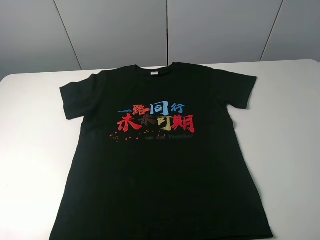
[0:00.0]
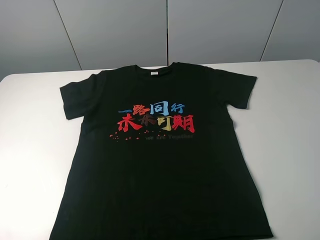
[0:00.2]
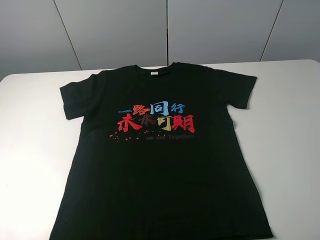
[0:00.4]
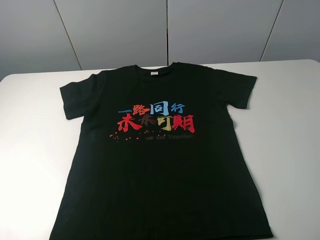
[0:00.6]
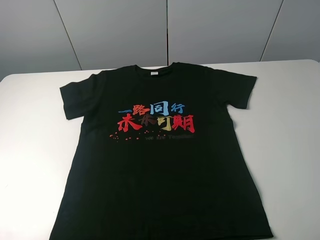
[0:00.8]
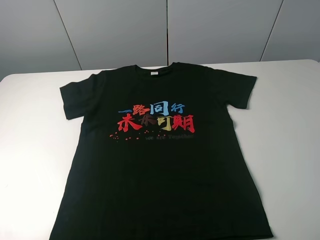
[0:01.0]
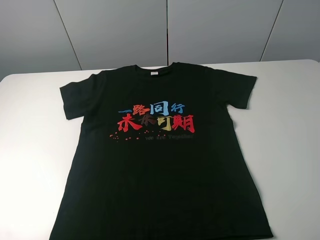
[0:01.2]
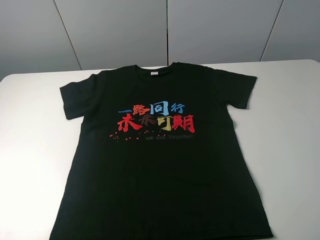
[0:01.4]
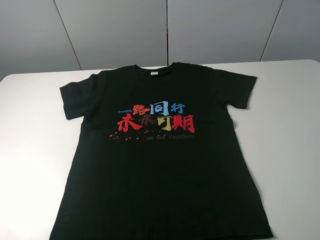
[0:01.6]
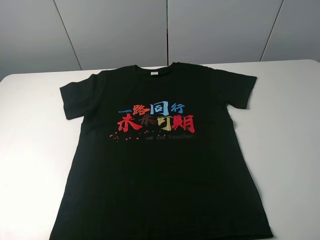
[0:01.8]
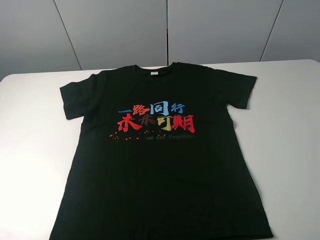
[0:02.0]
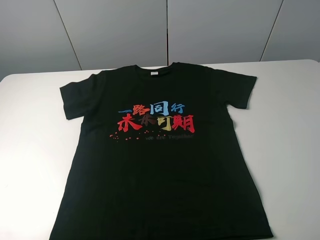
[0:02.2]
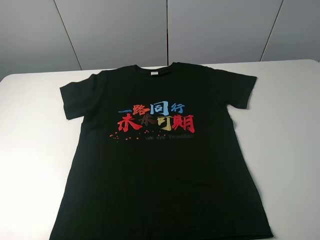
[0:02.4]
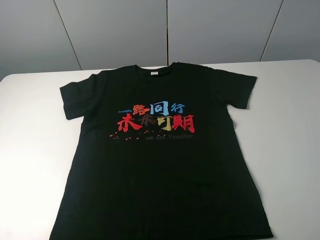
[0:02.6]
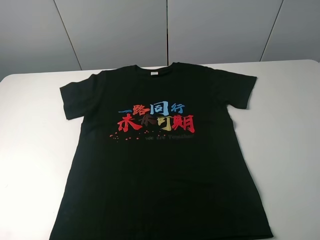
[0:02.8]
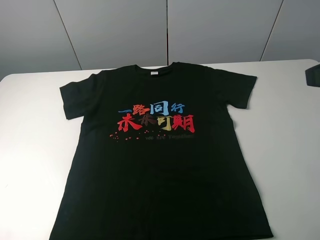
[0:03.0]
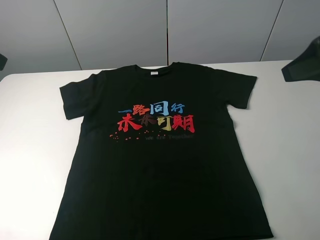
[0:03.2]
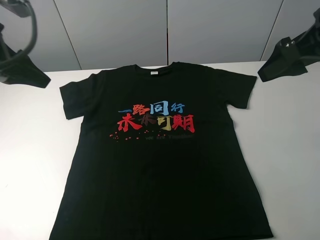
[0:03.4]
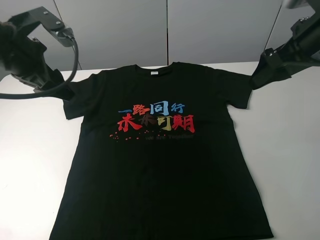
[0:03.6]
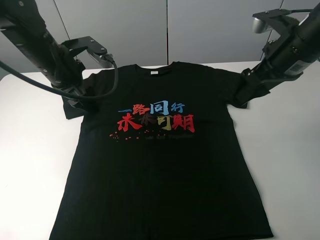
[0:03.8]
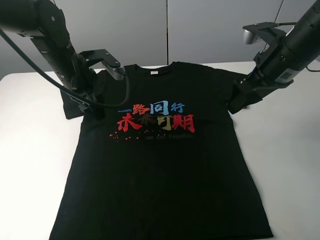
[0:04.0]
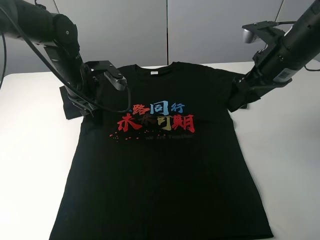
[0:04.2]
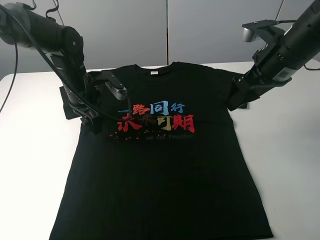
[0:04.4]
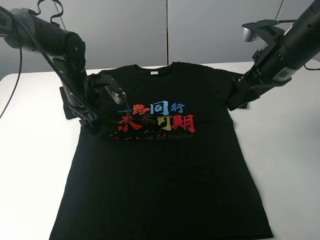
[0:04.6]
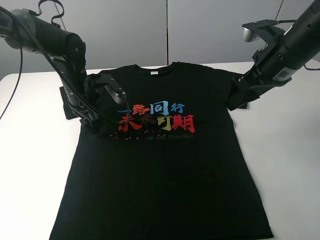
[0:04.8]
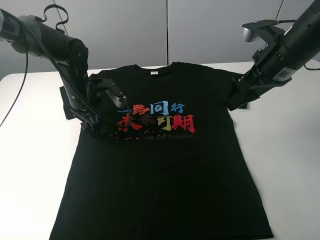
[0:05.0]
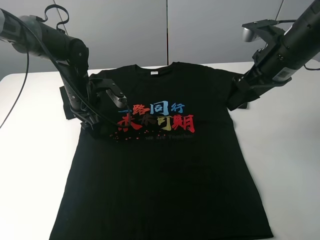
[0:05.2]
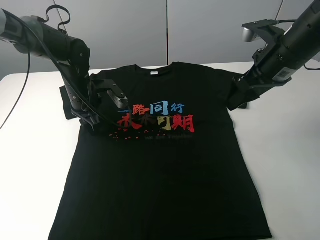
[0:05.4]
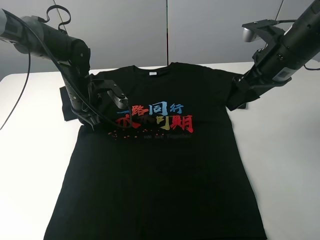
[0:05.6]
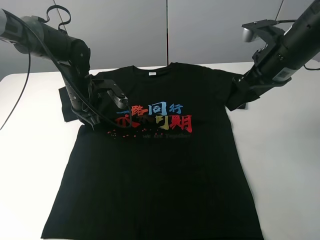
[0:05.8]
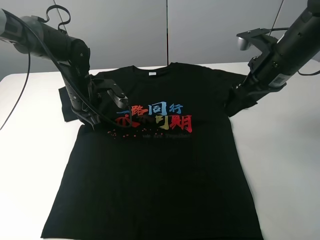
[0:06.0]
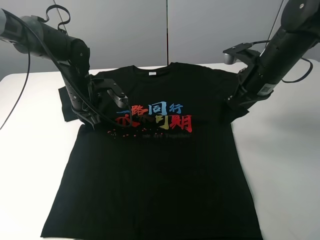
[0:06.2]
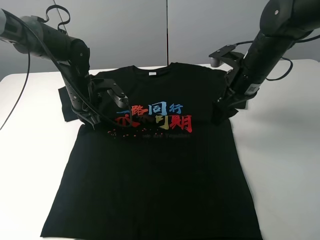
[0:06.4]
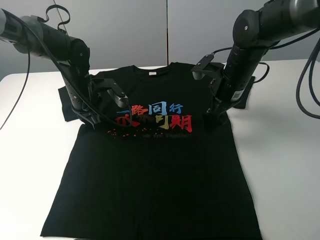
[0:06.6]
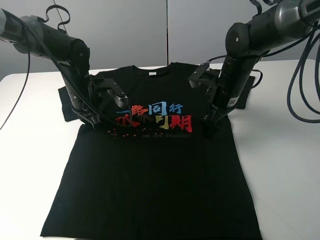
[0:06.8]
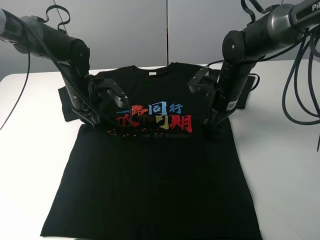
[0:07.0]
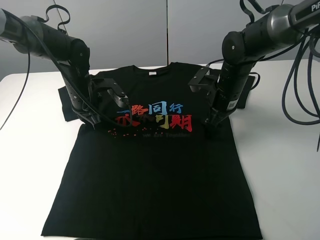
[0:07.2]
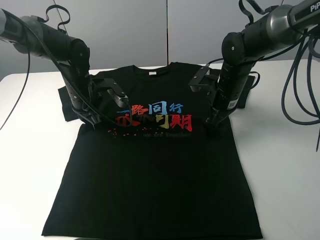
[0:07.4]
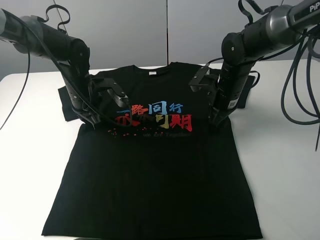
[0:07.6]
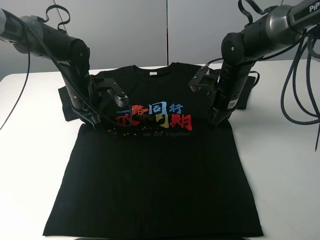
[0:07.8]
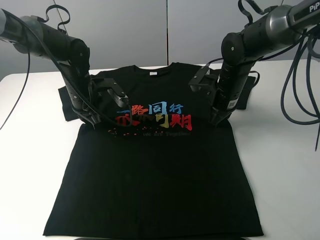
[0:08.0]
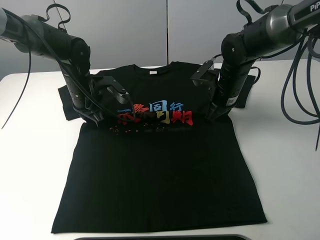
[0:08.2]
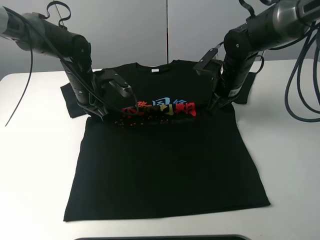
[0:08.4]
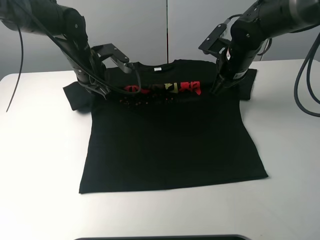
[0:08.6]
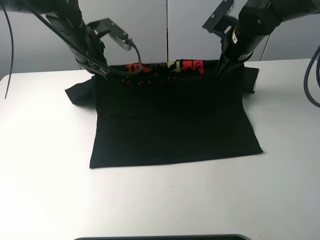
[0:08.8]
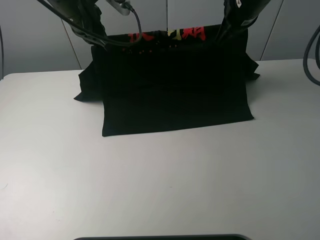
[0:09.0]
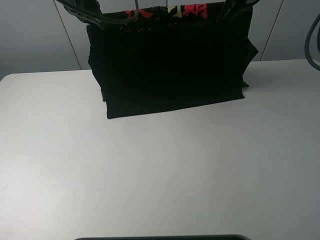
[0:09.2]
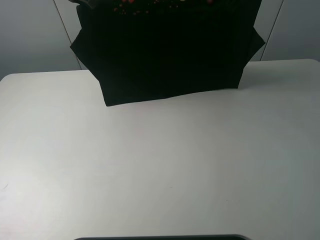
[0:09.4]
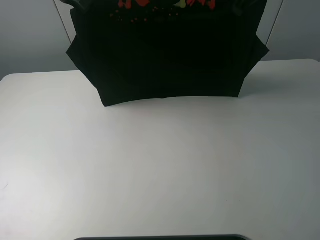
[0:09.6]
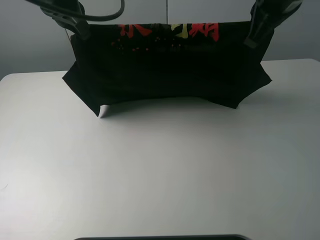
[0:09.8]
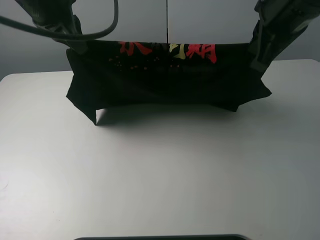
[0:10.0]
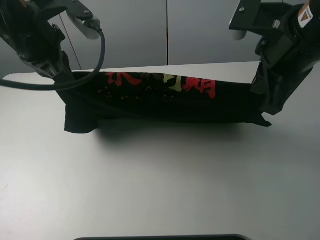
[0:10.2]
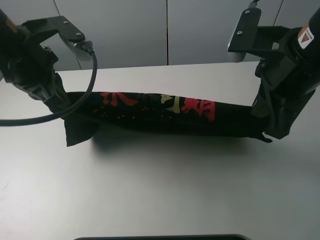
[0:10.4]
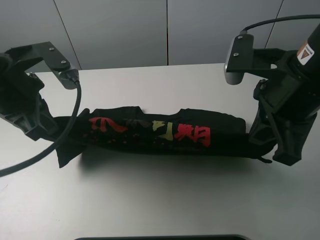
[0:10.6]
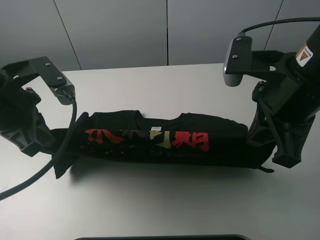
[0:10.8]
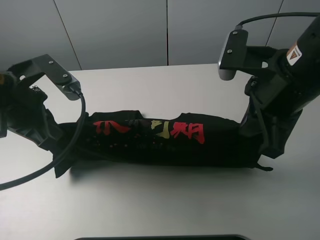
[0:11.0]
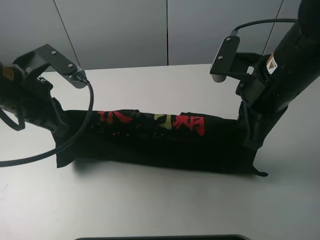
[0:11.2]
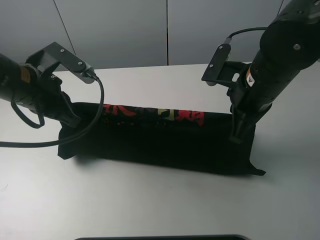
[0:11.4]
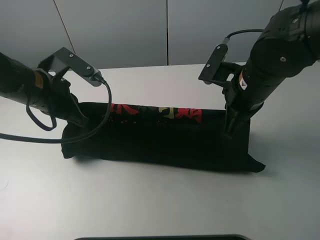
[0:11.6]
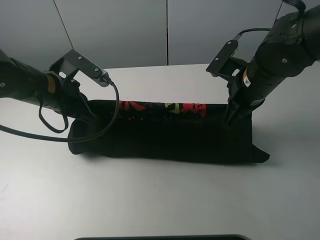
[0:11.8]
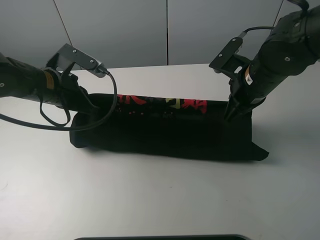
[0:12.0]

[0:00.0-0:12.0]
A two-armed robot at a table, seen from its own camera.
Task of the whole recording: fold the clothes on the table.
Step, 0:00.0 to 0:08.8: Lift the black T-shirt with the left gripper.
0:00.0 to 0:01.6: Both grippers stay about where they are.
0:03.0 to 0:04.4: The left gripper moves downward, forward and to the right, roughly 35 cm, while the right gripper goes some 20 cm forward and downward.
0:04.4 to 0:06.0: The left gripper closes.
0:06.0 to 0:07.6: The right gripper heads downward and to the left, covering some 10 cm, and closes.
0:07.6 to 0:09.0: The grippers both shift upward by roughly 15 cm. The right gripper closes up.
0:09.0 to 0:10.4: Both grippers move backward, roughly 20 cm.
0:10.4 to 0:12.0: The left gripper shifts some 10 cm downward, while the right gripper moves downward and forward, approximately 15 cm.

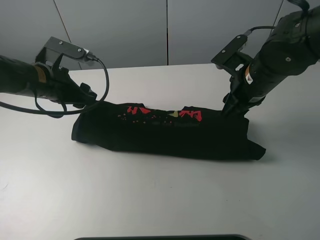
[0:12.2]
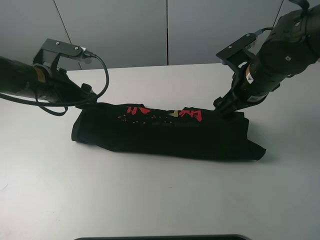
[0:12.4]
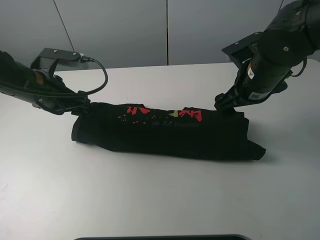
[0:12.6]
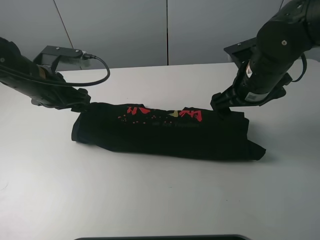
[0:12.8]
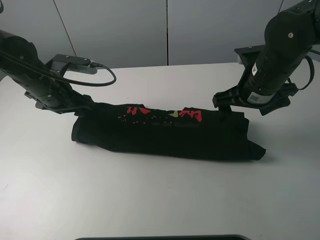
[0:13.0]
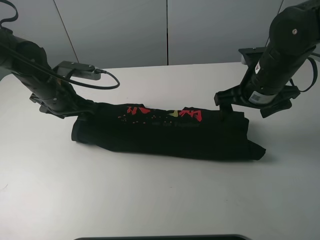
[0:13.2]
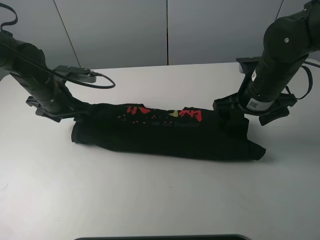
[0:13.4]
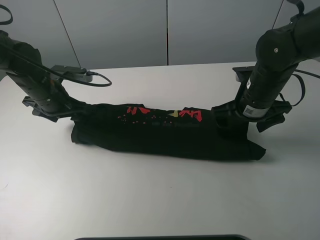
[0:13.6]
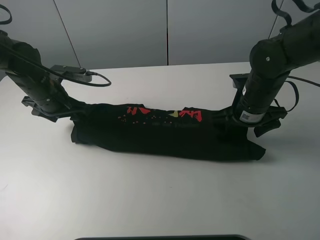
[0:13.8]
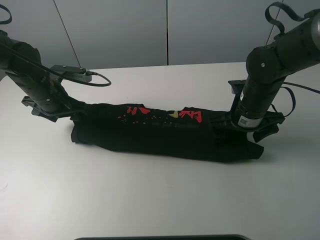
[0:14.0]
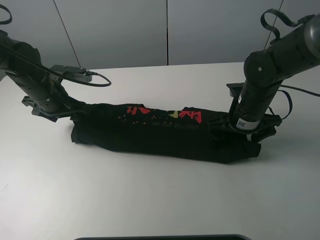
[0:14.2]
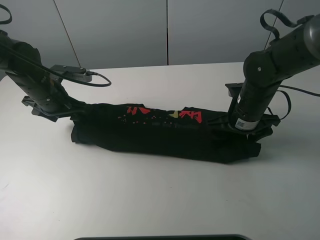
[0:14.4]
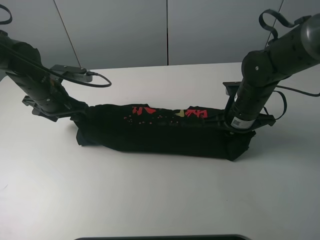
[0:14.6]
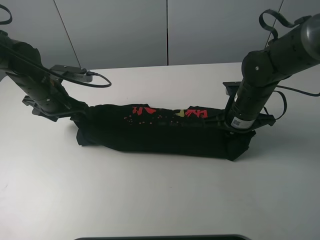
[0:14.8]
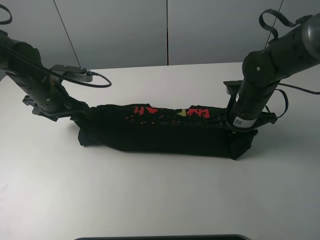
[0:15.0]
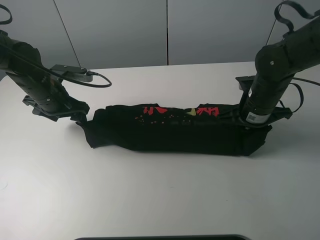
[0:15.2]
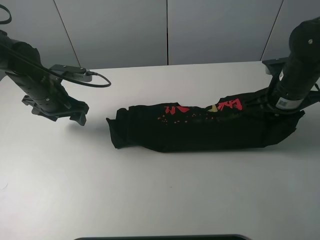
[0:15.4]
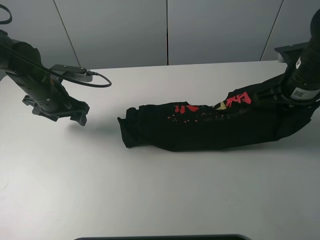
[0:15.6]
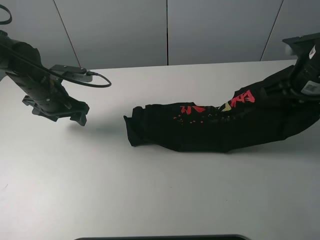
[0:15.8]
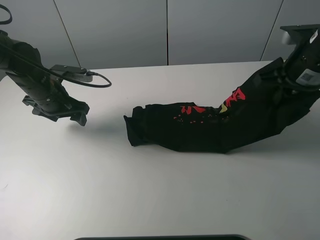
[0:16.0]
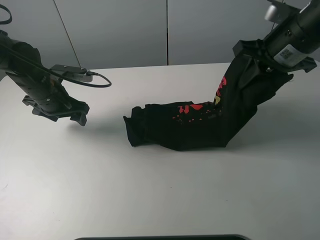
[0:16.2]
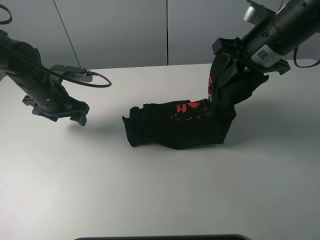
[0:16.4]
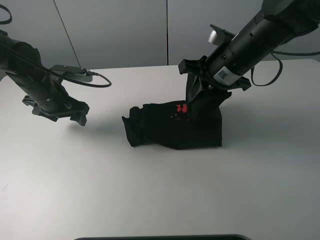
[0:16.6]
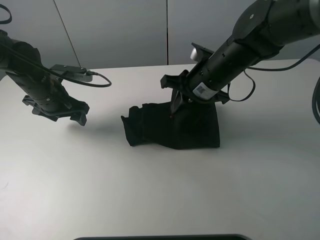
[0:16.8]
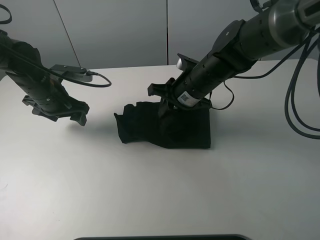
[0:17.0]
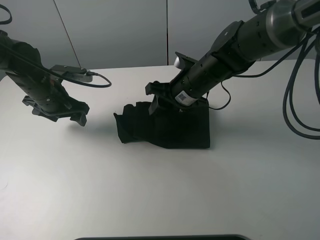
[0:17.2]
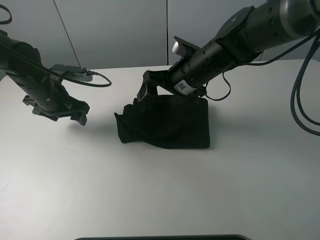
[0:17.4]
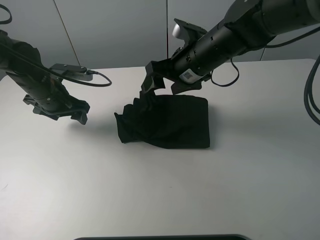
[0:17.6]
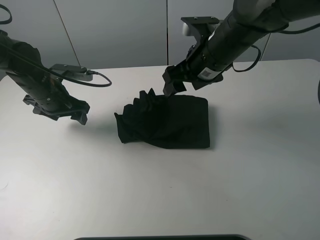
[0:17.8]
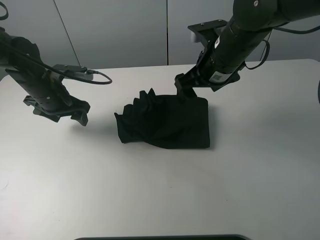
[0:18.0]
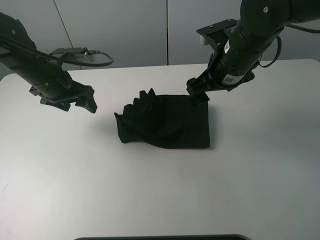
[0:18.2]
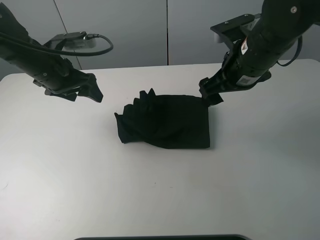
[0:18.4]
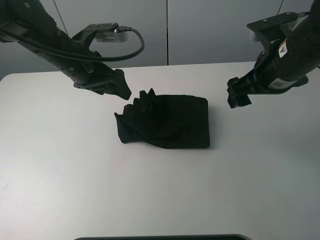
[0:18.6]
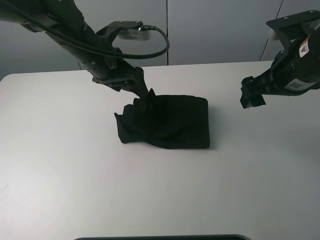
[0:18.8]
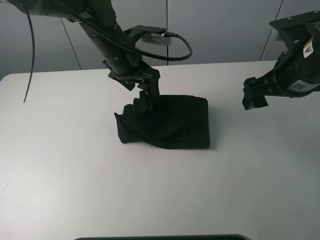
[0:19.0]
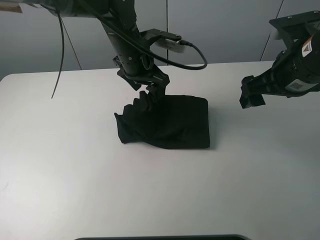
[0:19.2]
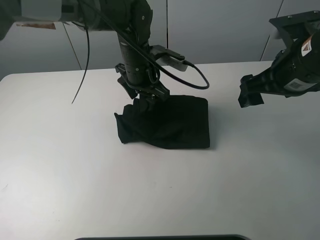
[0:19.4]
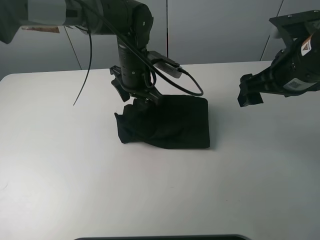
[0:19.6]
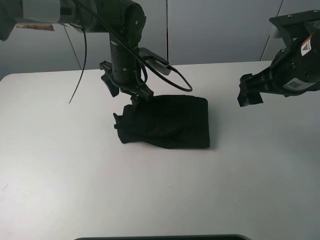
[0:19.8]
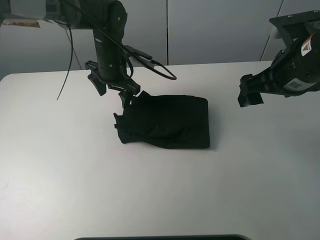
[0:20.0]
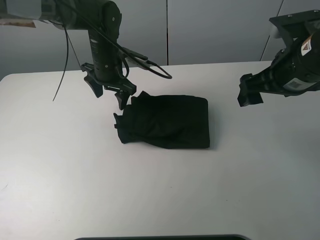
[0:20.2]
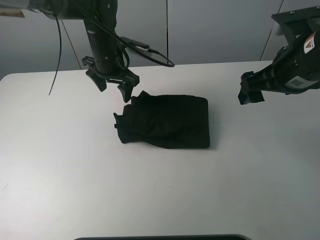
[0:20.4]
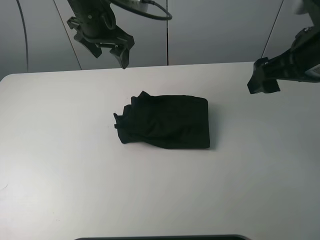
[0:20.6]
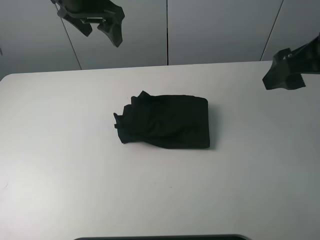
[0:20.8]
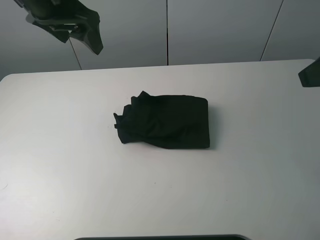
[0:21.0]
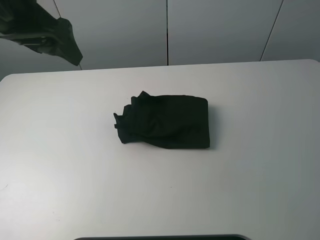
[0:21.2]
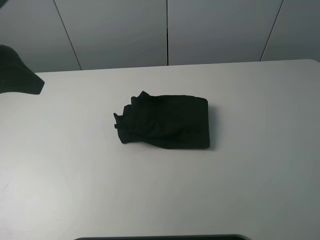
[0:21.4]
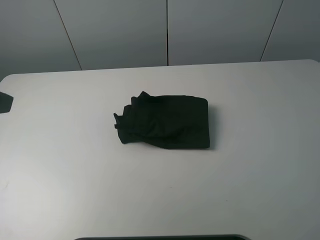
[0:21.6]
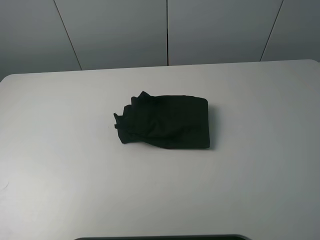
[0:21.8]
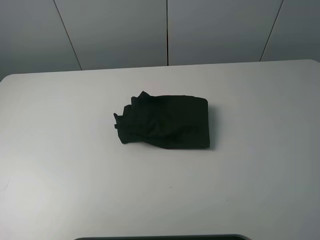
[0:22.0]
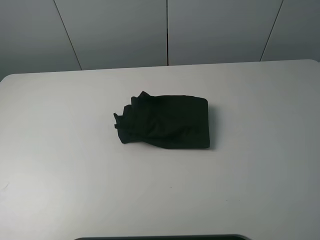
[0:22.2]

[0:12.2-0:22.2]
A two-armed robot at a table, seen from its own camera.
Task of the whole recording: fold the clothes on the table.
Step, 0:12.6 to 0:14.6: Grasp the black T-shirt with the right gripper.
Step, 0:14.8 to 0:17.6: Fold the black T-shirt from right to left with right gripper.
Step, 0:17.8 to 0:20.4: Use the left gripper to tidy up the clothes.
0:12.2 to 0:13.6: The left gripper moves about 5 cm.
0:13.6 to 0:15.0: The right gripper closes up.
0:15.0 to 0:16.4: The right gripper shifts roughly 15 cm upward.
0:16.4 to 0:18.0: The right gripper is displaced to the left by about 5 cm, and opens its fingers.
0:18.0 to 0:19.4: The left gripper travels to the right by roughly 20 cm; the right gripper goes about 10 cm to the right and backward.
0:19.4 to 0:20.8: The right gripper travels upward and backward by some 10 cm. The left gripper shifts about 20 cm upward and to the left.
0:20.8 to 0:22.2: The right gripper heads backward, covering about 20 cm. The left gripper goes about 40 cm backward and to the left.
